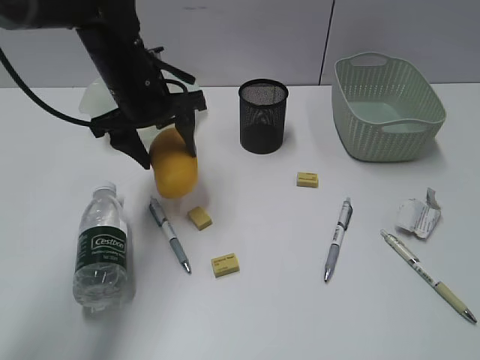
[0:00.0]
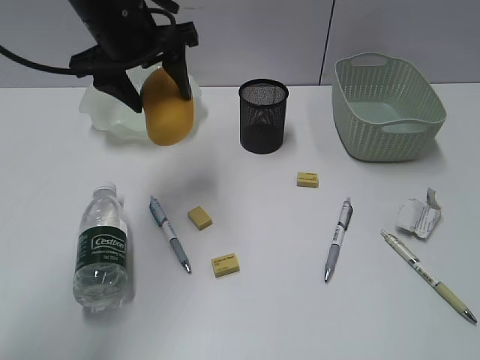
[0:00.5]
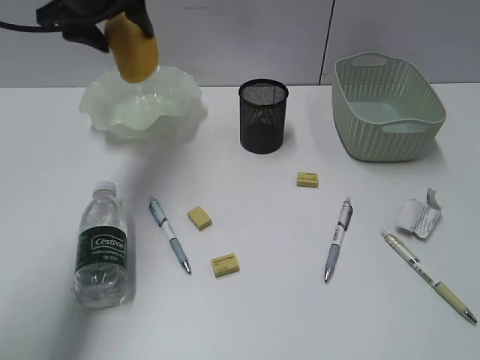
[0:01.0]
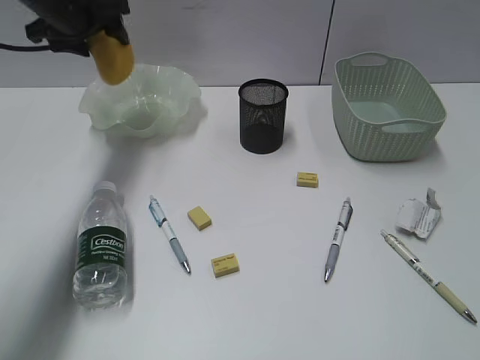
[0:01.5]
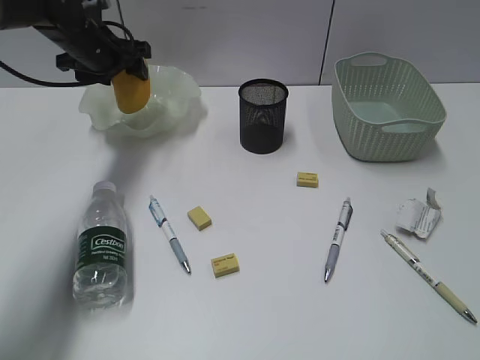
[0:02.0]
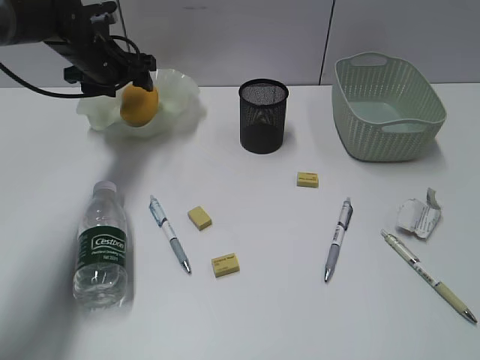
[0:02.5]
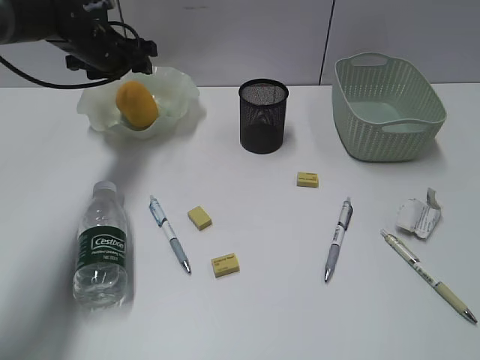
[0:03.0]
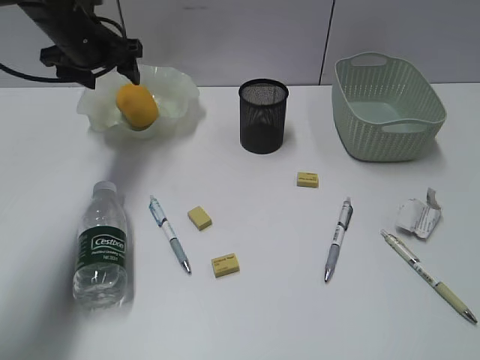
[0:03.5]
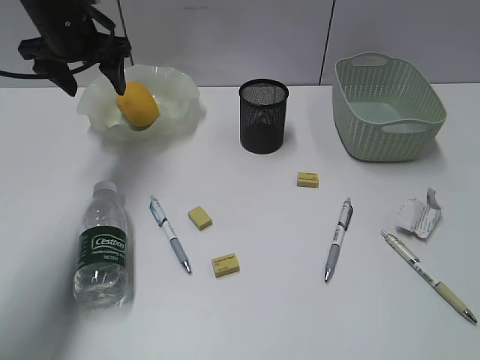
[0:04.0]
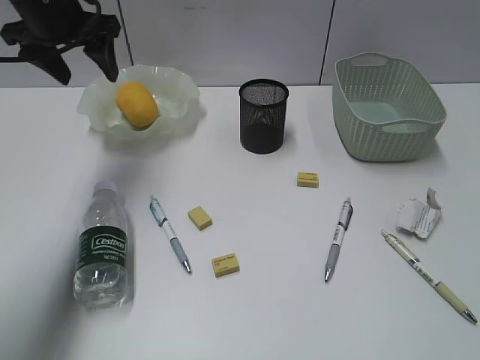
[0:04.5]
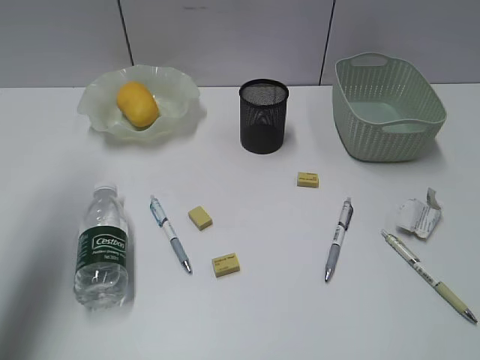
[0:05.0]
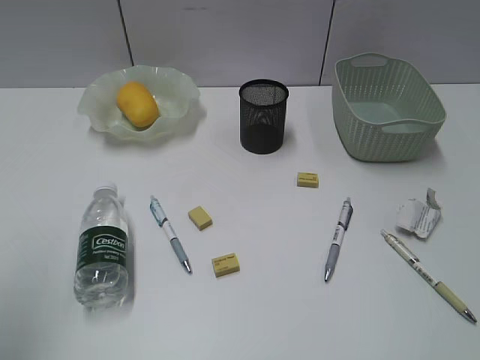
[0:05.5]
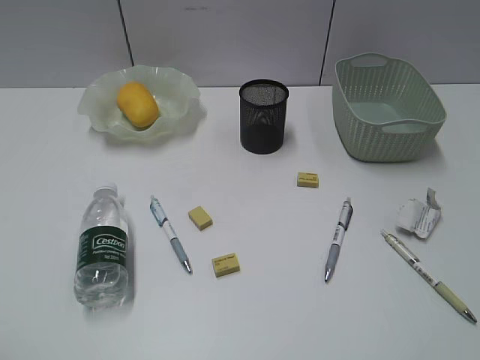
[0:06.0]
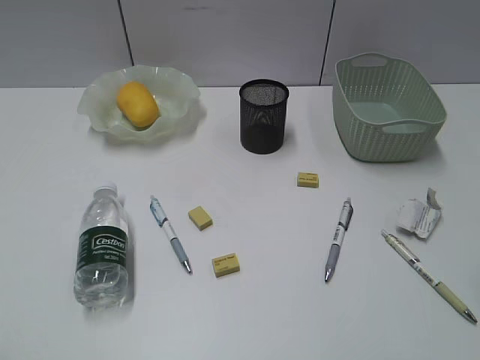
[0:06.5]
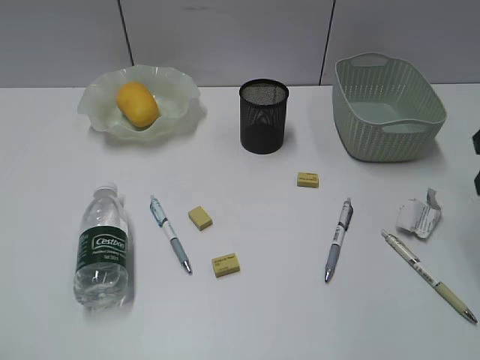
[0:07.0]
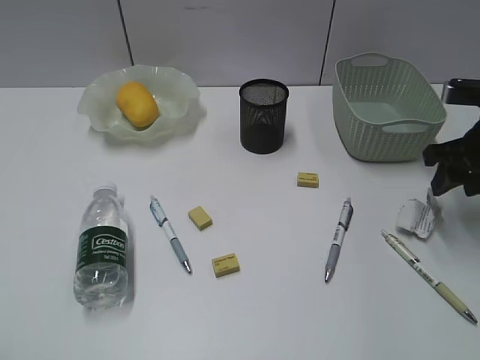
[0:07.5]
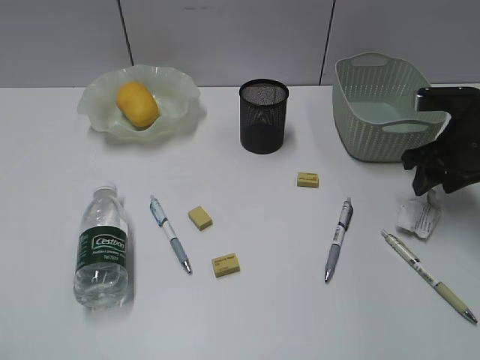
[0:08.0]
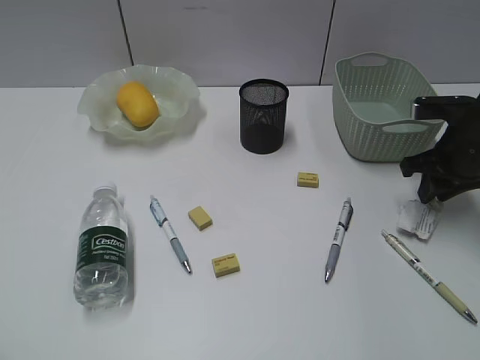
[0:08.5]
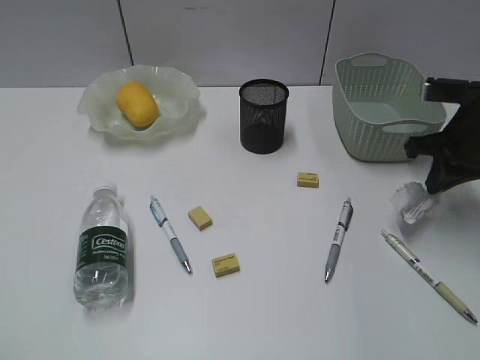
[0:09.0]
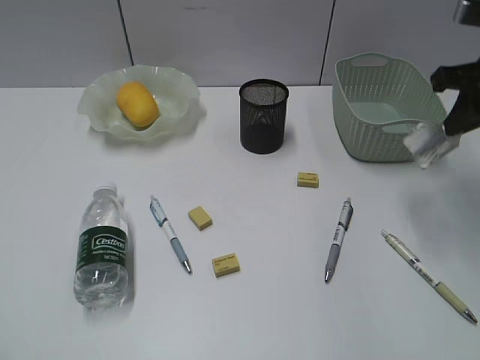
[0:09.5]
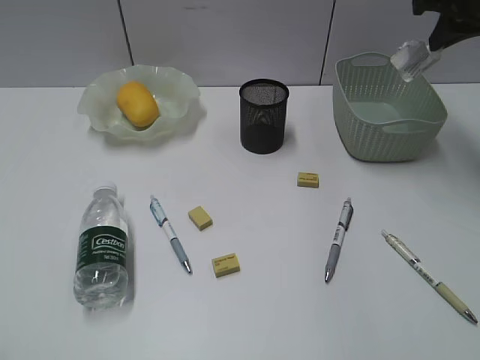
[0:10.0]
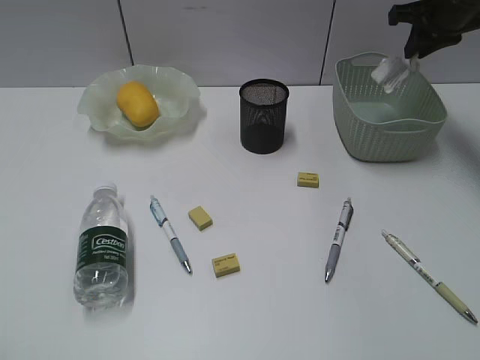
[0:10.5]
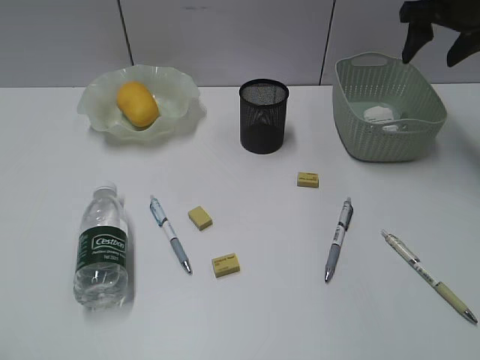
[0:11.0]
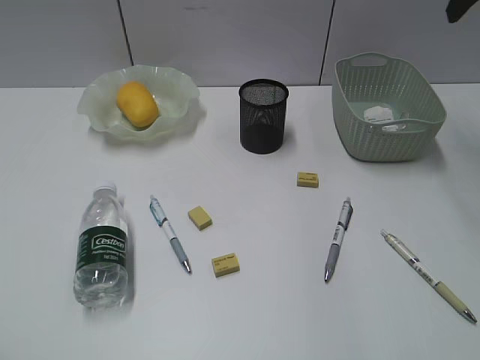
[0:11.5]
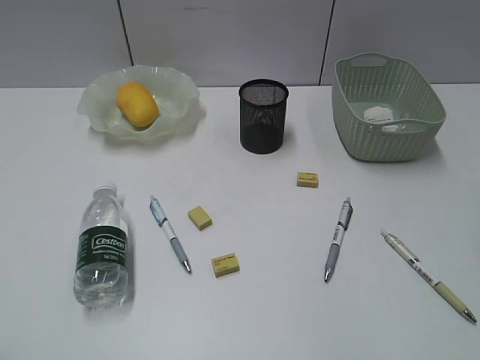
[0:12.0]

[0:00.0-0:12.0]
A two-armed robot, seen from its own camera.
Step, 0:00.0 to 0:02.5: Place the mango in the plate with left gripper.
Step, 0:03.0 to 0:08.5: Grasp the waste paper with right gripper.
Step, 0:09.0 to 0:10.5: Place the waste paper in the basket with right gripper.
0:00.0 to 0:02.0: The left gripper travels forward and to the left by approximately 15 cm.
0:02.0 to 0:04.0: The left gripper changes place by approximately 5 cm.
0:04.0 to 0:06.0: The left gripper moves backward, approximately 40 cm.
0:06.0 to 0:08.0: The right gripper is displaced forward and downward by about 35 cm.
0:08.0 to 0:10.0: The right gripper moves upward and forward, roughly 15 cm, and closes.
0:10.0 to 0:12.0: The right gripper is displaced backward by about 20 cm, and opens.

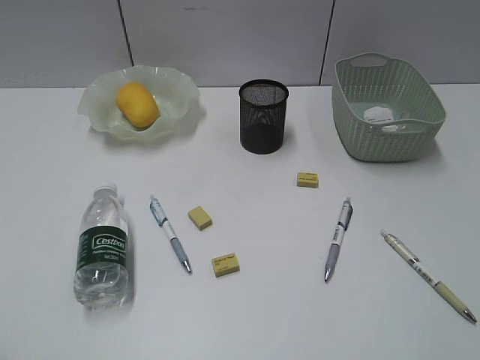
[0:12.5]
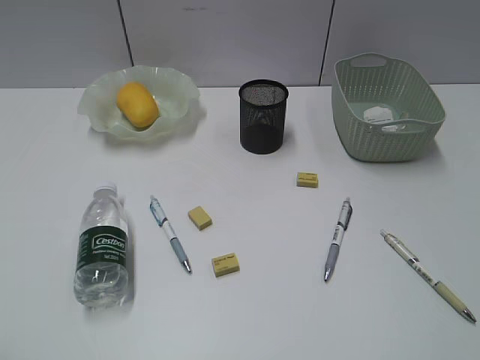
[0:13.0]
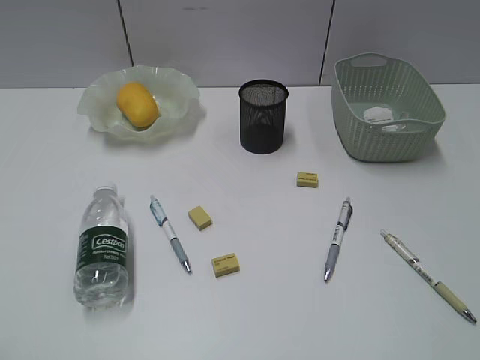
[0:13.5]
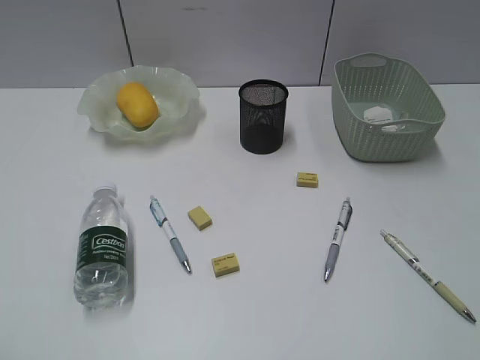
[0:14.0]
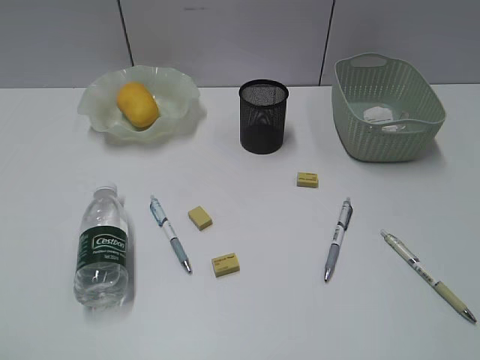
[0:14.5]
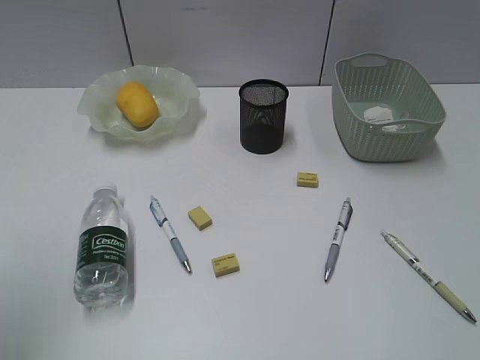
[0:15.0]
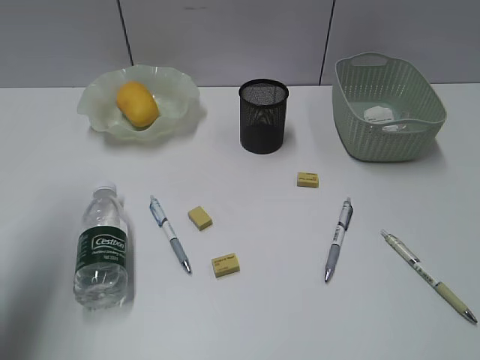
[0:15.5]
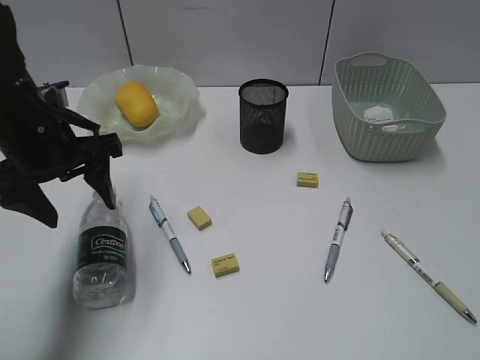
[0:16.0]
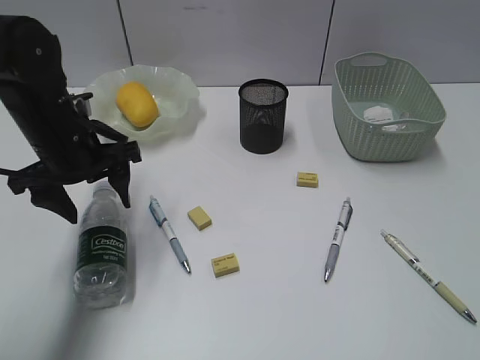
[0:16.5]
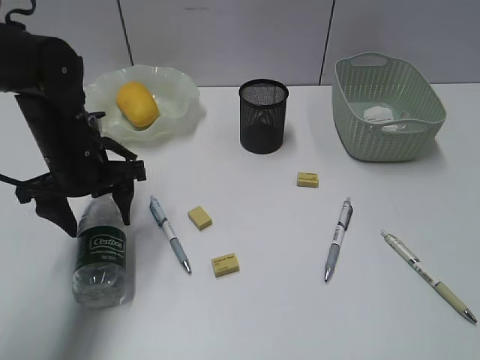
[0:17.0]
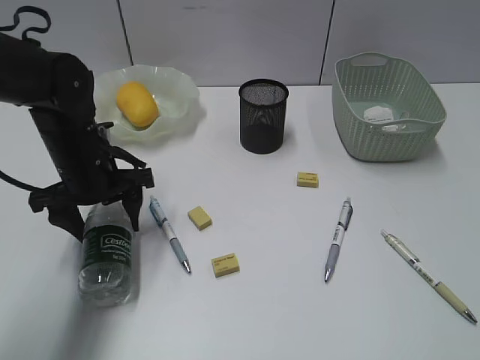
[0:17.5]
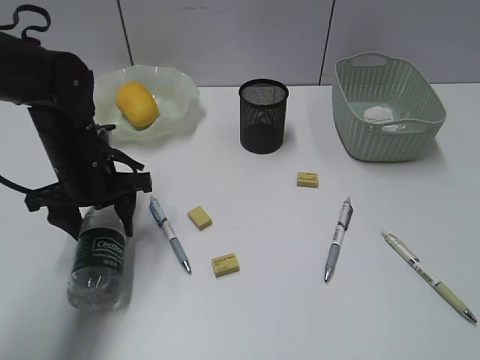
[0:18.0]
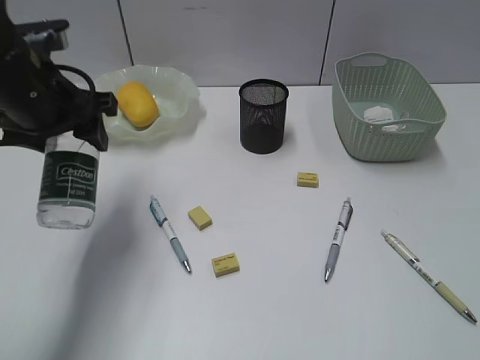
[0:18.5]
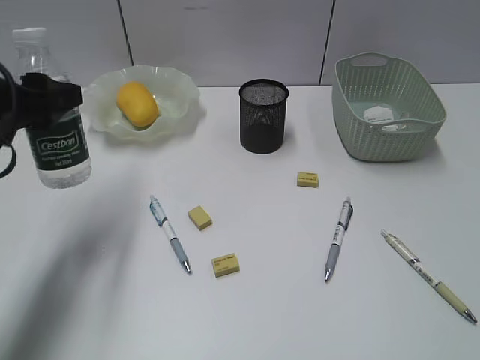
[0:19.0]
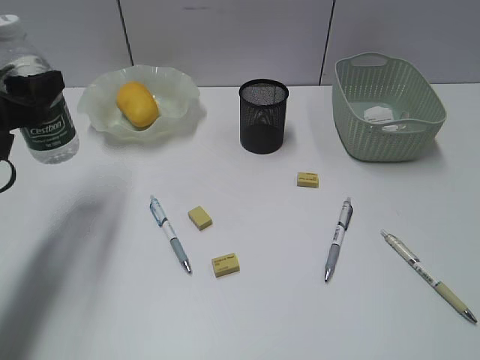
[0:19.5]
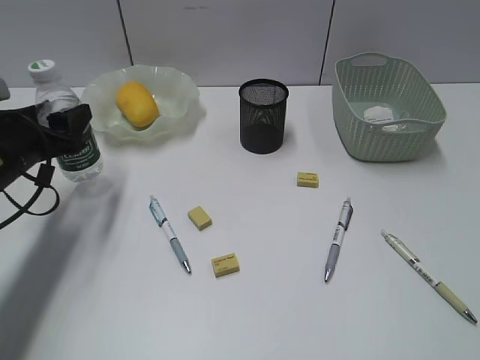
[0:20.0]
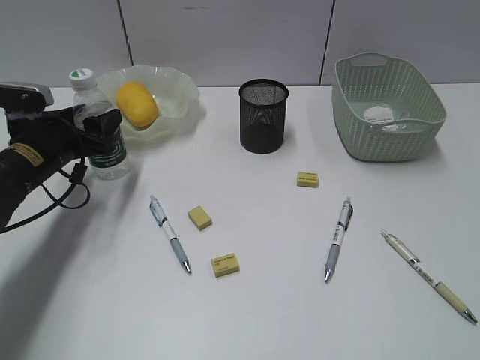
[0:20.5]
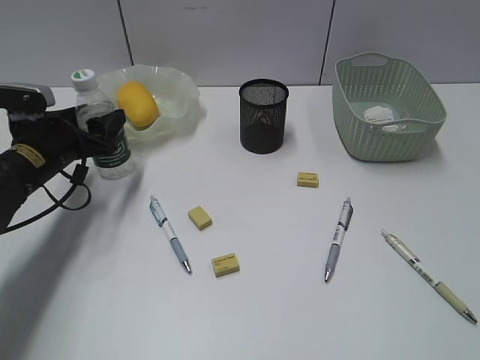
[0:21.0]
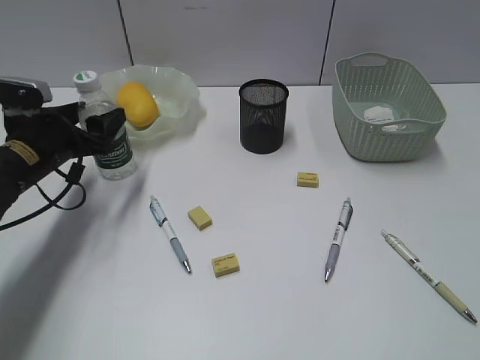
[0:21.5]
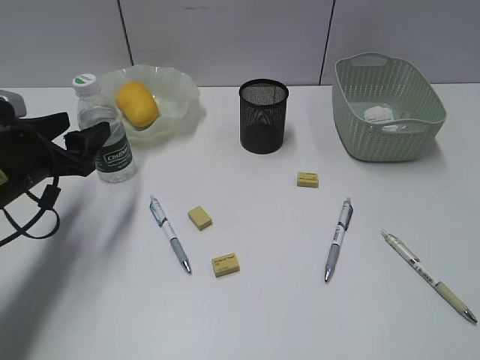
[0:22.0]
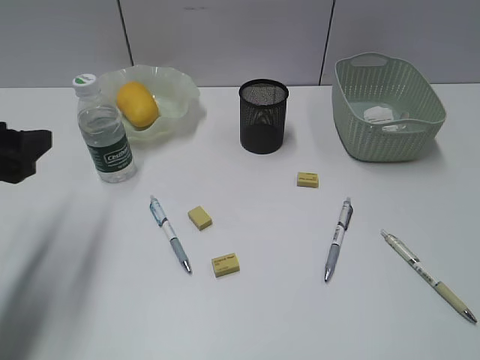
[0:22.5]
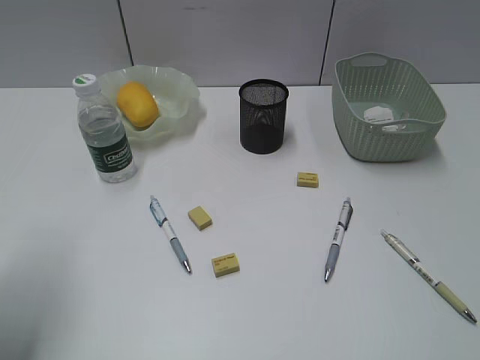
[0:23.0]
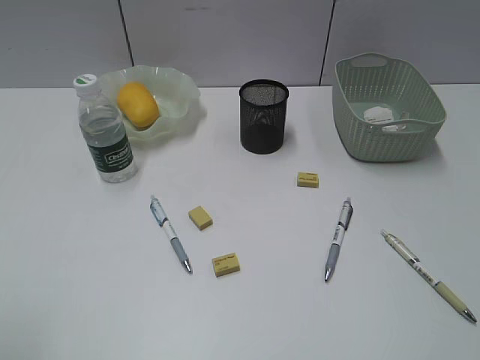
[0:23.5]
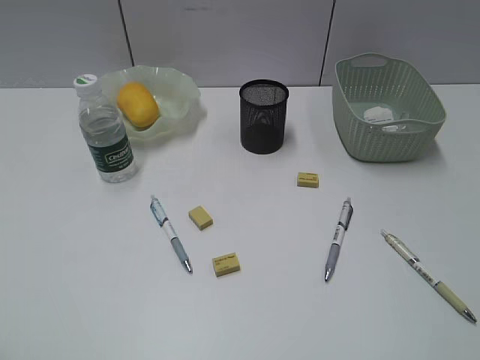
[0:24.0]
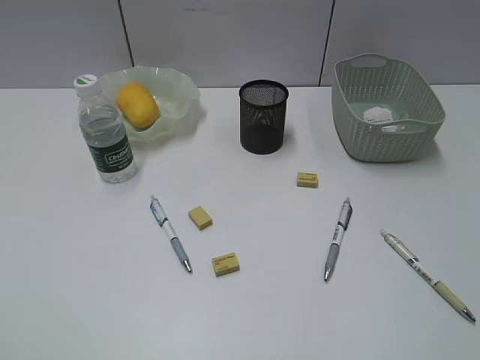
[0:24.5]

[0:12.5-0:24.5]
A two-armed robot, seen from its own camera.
Step, 0:12.5 to 0:17.5: Grasp the bottle with left gripper.
Step, 0:18.0 to 0:21.5: Stand the bottle with left gripper.
0:14.5 to 0:16.5: The left gripper travels forward and to the right by about 35 cm.
0:16.5 to 0:18.5: The left gripper is displaced upward by some 5 cm.
0:18.5 to 0:20.5: The left gripper shifts about 15 cm downward.
0:20.5 to 0:22.5: The left gripper heads backward and upward, covering approximately 15 cm.
0:22.5 to 0:24.5: The left gripper heads backward, covering some 25 cm.

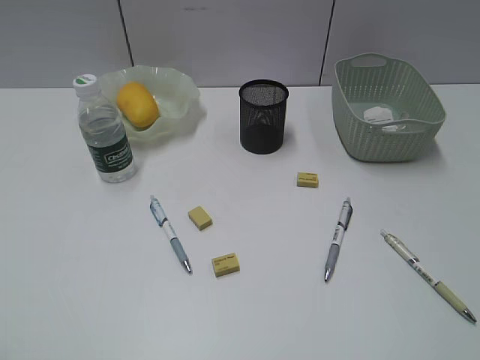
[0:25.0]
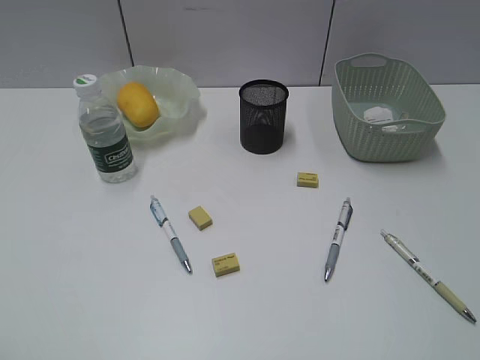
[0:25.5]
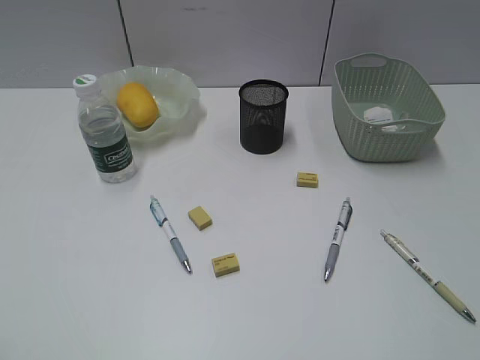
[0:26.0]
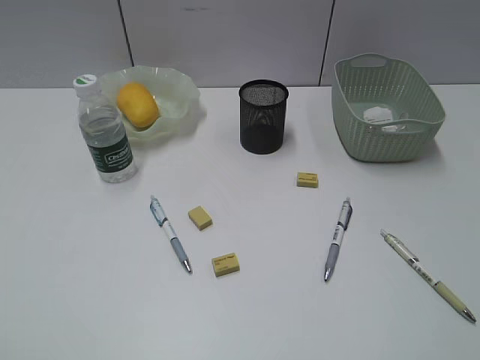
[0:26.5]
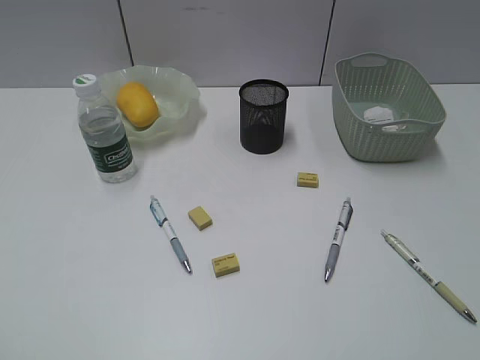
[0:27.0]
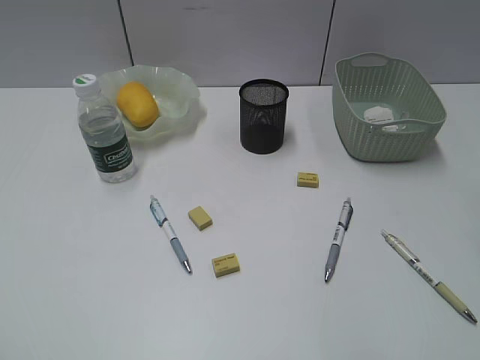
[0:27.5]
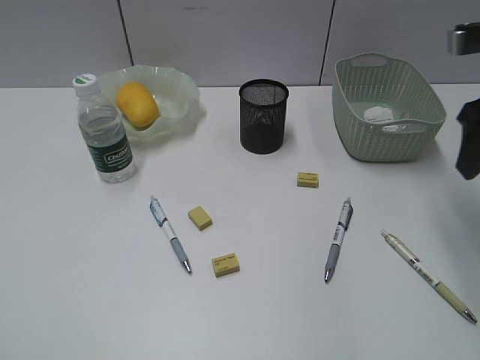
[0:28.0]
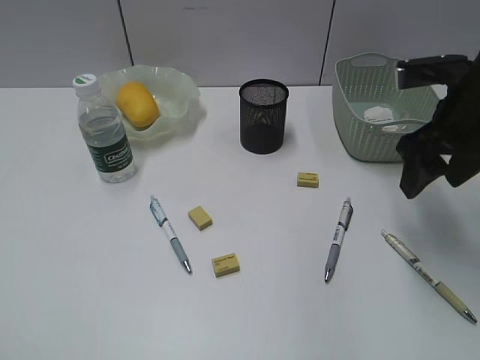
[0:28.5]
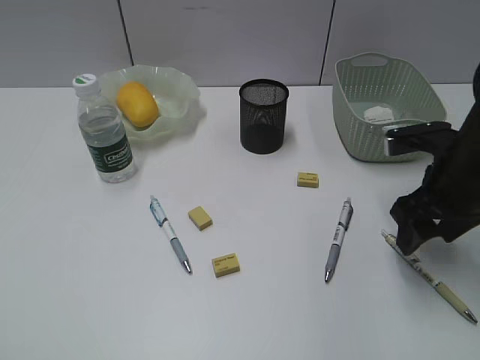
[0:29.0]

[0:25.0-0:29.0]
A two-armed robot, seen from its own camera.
0:27.0 to 0:29.0: The right gripper heads forward and downward, covering some 25 cm.
